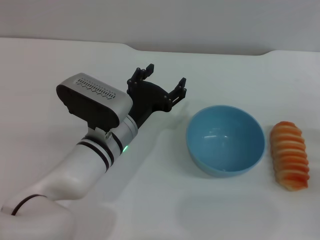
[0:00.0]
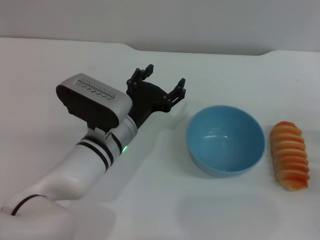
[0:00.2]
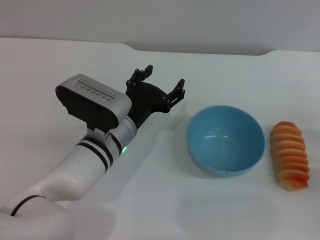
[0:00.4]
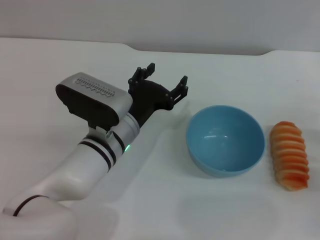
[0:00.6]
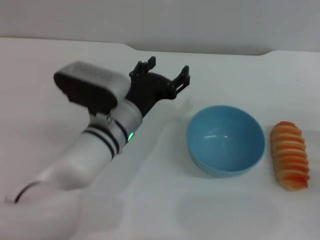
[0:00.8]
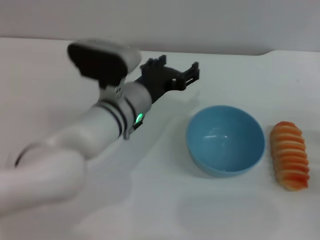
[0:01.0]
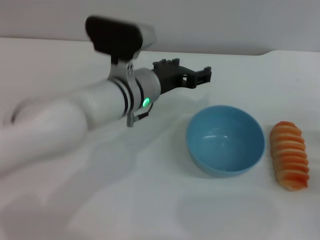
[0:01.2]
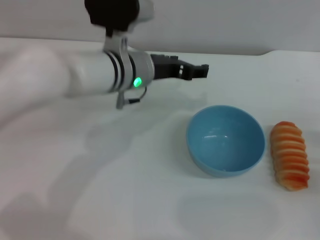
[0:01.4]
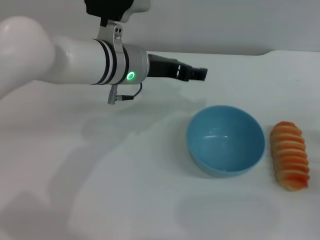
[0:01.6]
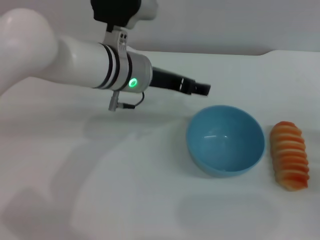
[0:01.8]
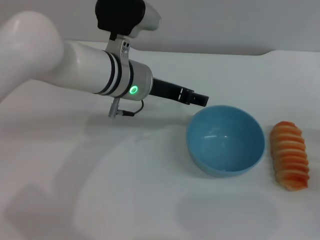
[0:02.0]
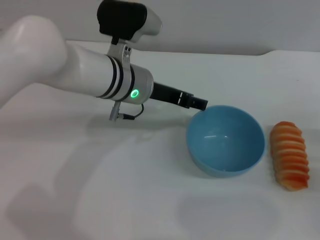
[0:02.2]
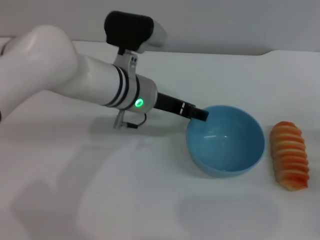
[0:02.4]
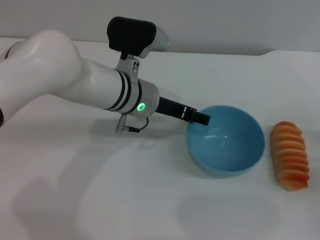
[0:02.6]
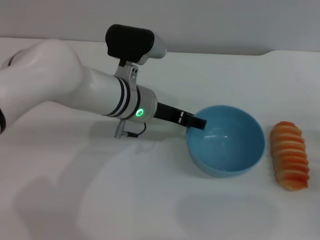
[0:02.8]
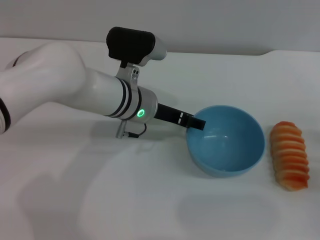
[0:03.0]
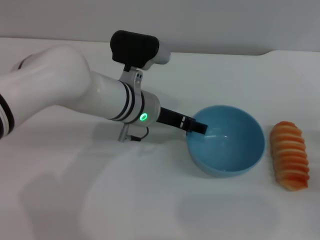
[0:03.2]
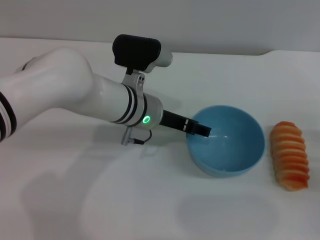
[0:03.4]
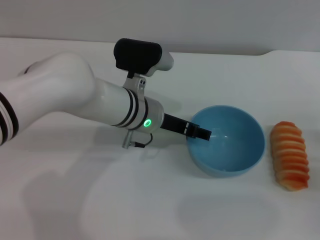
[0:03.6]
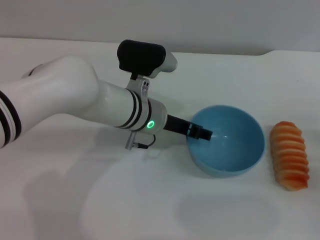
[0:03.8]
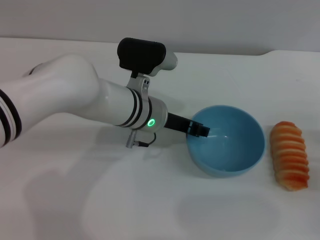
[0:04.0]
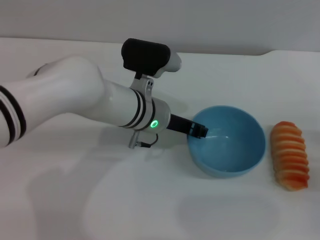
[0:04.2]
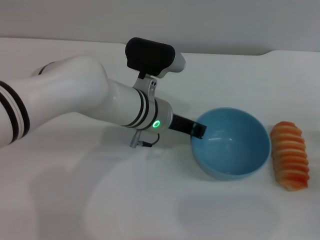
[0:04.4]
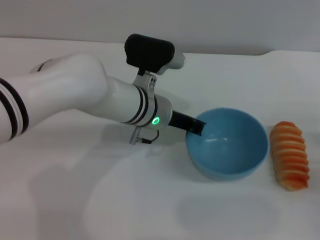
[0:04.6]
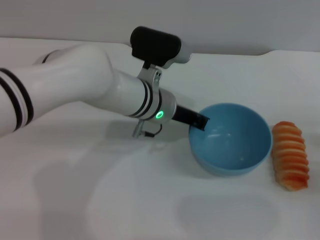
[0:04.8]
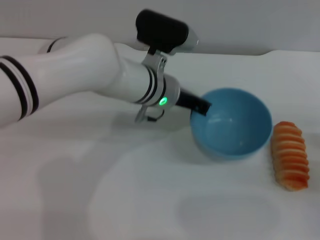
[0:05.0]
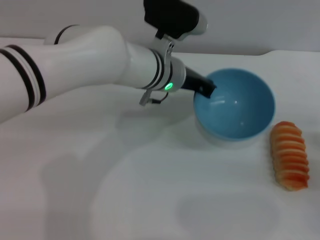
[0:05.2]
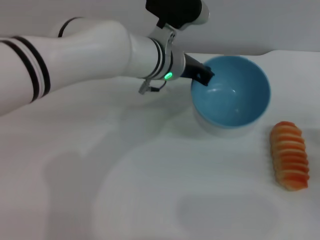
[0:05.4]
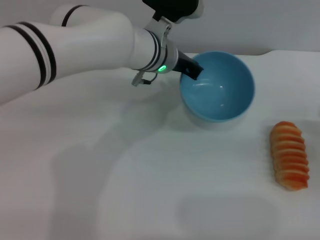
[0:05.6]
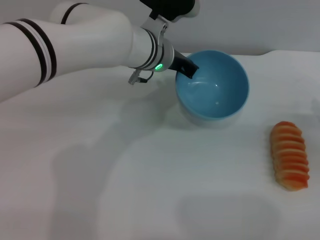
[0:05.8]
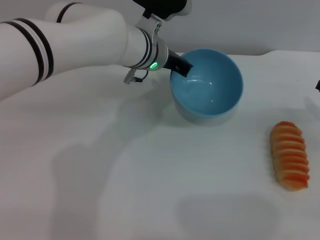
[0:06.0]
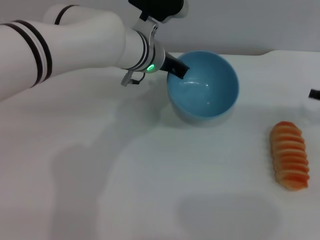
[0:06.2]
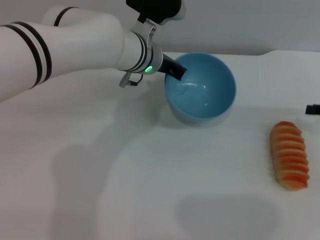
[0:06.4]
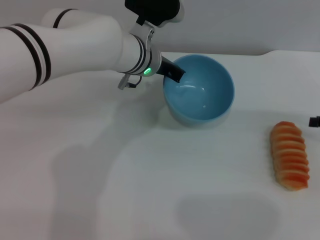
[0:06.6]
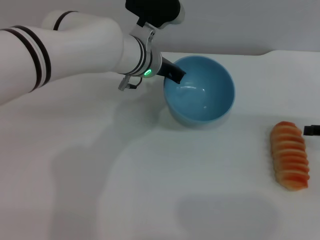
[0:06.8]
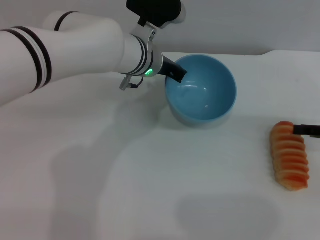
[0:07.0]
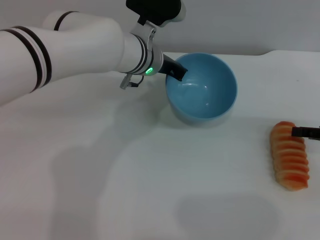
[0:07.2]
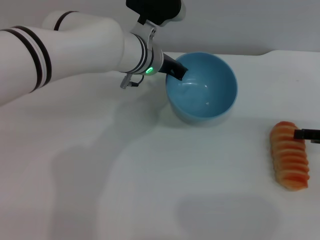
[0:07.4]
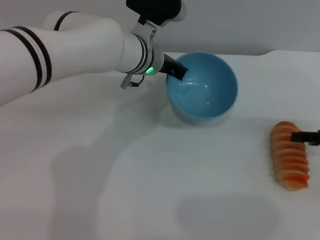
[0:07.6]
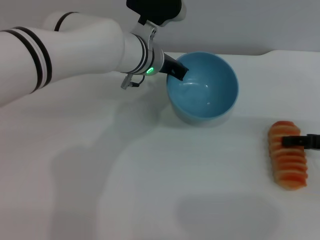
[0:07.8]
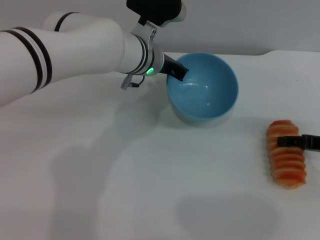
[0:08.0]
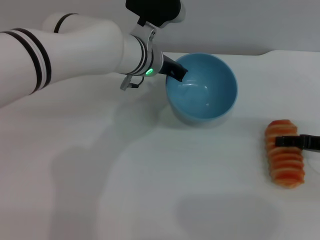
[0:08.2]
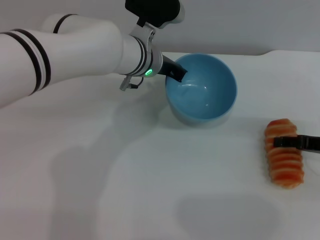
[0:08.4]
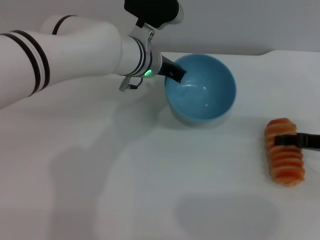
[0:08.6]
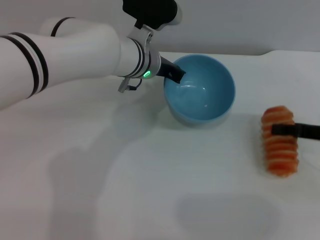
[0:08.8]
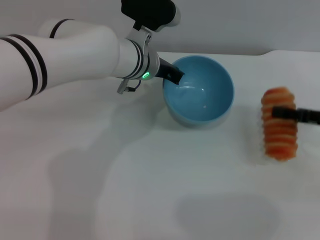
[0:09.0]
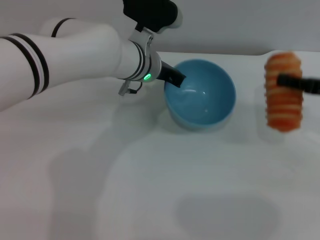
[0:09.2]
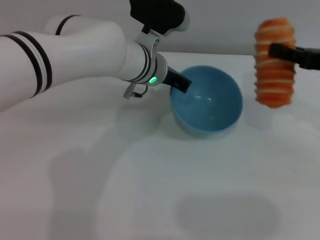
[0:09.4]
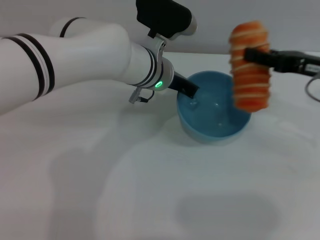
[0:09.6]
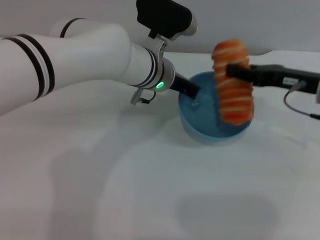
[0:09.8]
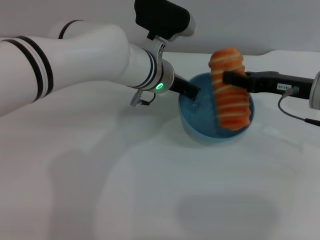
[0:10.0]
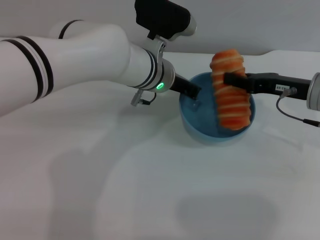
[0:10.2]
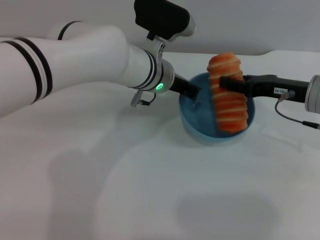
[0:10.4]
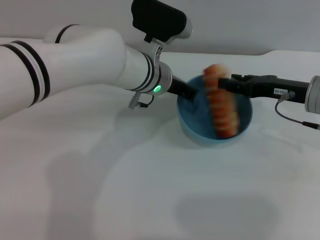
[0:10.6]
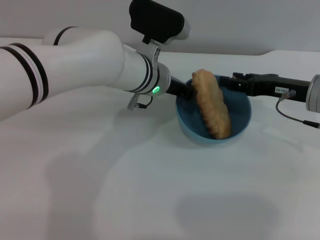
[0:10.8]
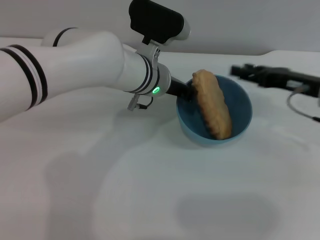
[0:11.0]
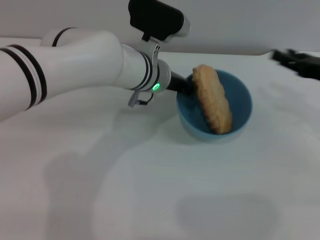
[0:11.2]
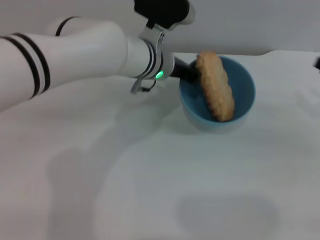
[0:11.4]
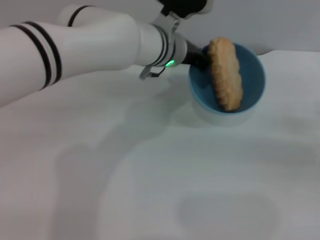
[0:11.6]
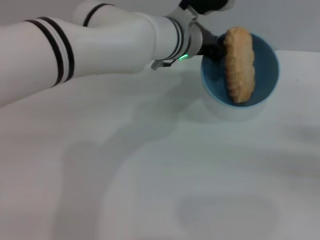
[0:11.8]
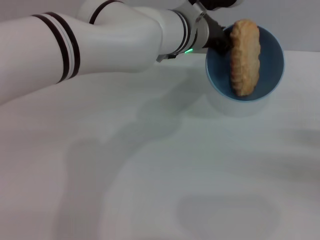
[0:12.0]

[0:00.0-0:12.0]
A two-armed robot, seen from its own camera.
Task of the whole recording: put the bread into the blue bowl and pour it out repeatedly.
Step, 0.0 to 5.2 s: Pick up the bowl with the left gripper.
Step, 5.4 to 9.0 s: Pick up the bread with the right gripper.
Step, 9.2 to 11.0 s: Place the bread into the bowl.
0.0 to 1.6 s: The left gripper is displaced upward and forward by approximately 15 cm.
1.6 to 3.0 s: The left gripper travels downward by some 5 cm.
3.0 to 4.4 s: The left gripper closes.
4.4 to 6.0 s: Both grippers move forward, about 10 cm. The left gripper closes up.
7.6 to 9.0 s: The right gripper closes its fingers.
9.0 to 10.4 s: The right gripper is displaced to the left by approximately 10 cm.
10.4 to 12.0 s: The right gripper is displaced to the right, backward and downward by about 20 cm, and opens up. Meanwhile the left gripper moves roughly 5 cm.

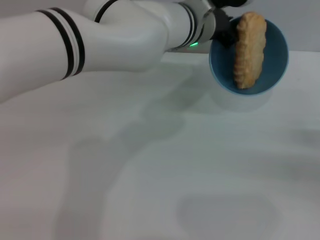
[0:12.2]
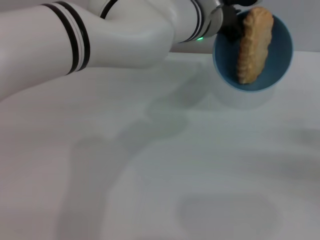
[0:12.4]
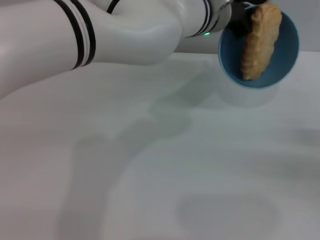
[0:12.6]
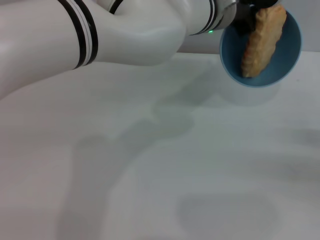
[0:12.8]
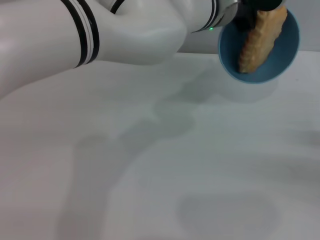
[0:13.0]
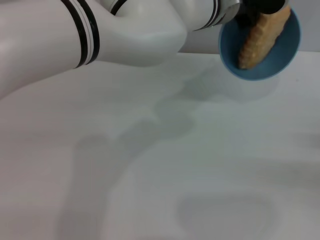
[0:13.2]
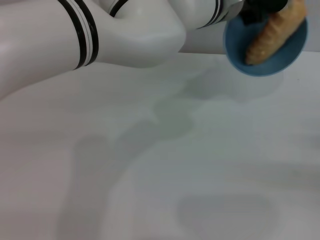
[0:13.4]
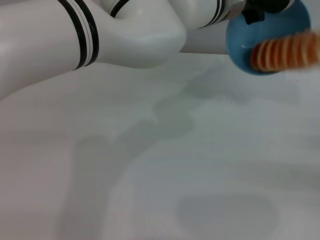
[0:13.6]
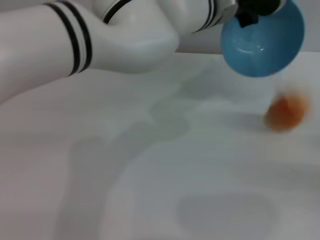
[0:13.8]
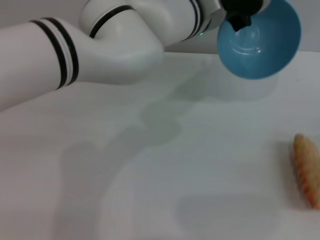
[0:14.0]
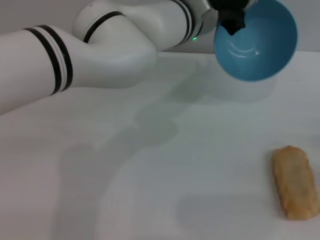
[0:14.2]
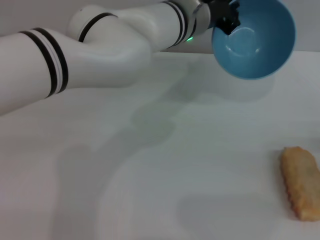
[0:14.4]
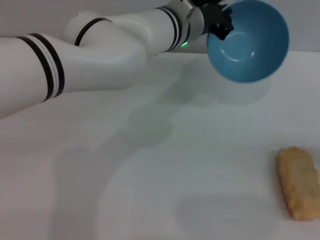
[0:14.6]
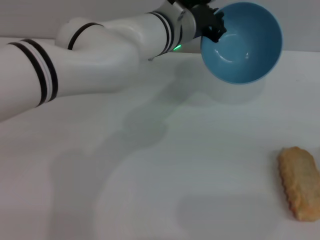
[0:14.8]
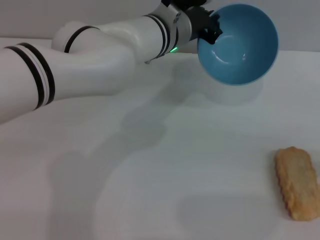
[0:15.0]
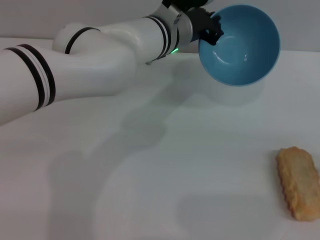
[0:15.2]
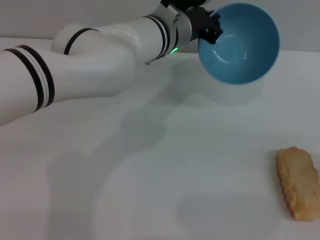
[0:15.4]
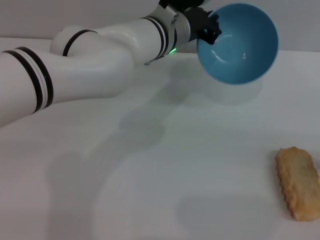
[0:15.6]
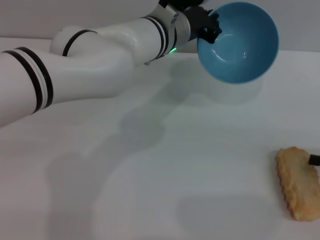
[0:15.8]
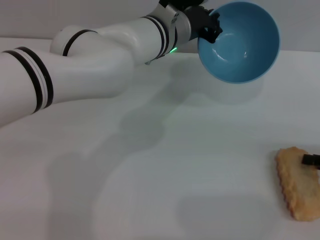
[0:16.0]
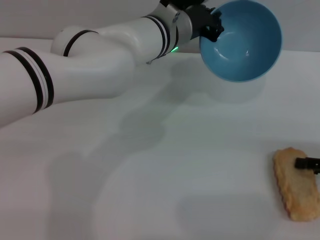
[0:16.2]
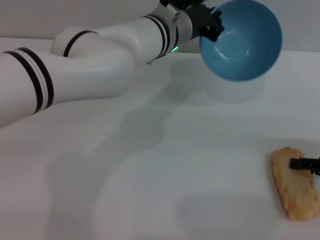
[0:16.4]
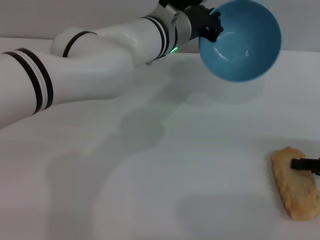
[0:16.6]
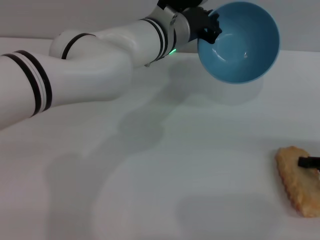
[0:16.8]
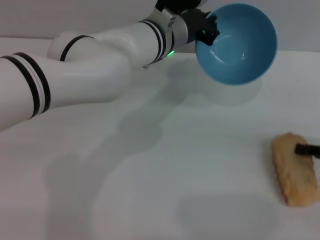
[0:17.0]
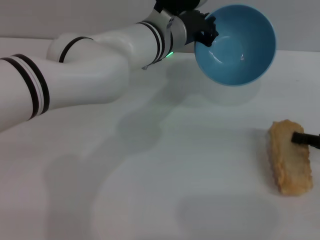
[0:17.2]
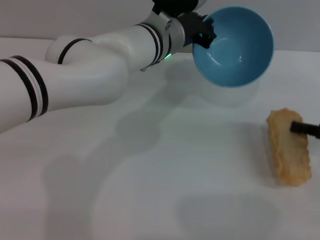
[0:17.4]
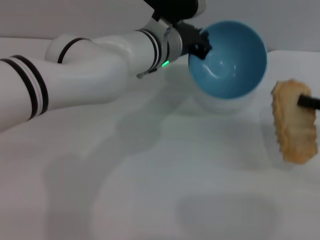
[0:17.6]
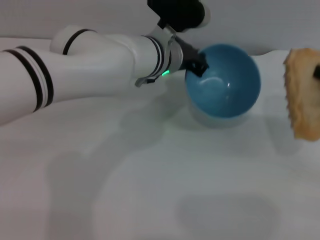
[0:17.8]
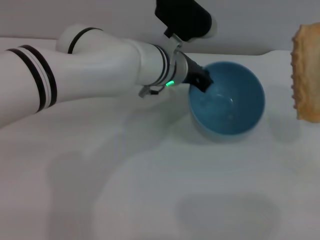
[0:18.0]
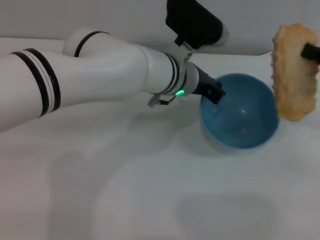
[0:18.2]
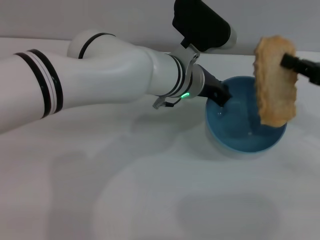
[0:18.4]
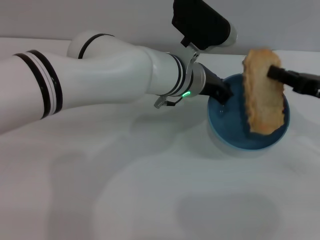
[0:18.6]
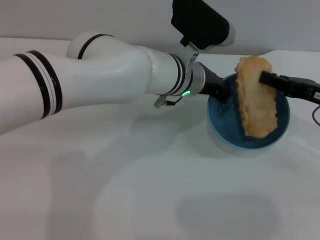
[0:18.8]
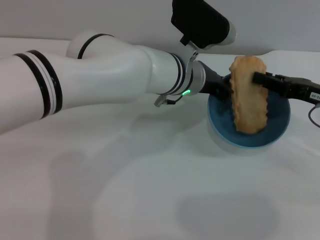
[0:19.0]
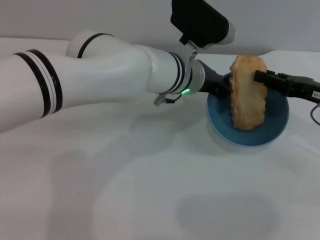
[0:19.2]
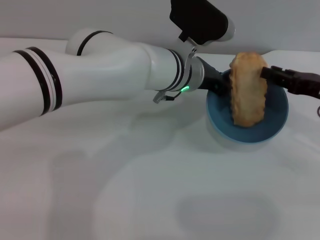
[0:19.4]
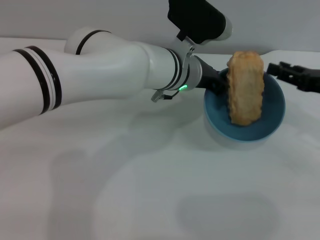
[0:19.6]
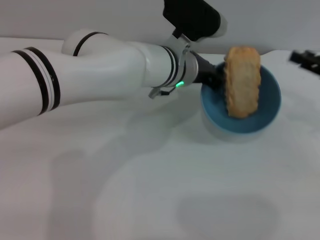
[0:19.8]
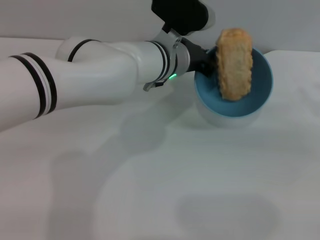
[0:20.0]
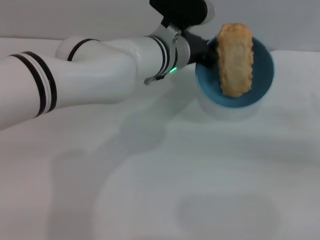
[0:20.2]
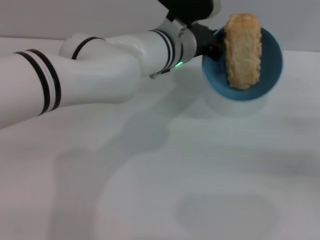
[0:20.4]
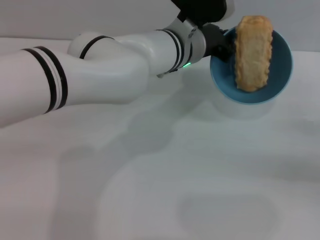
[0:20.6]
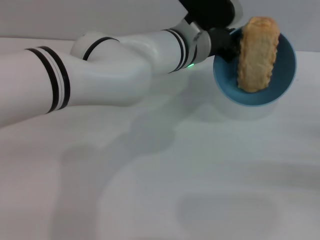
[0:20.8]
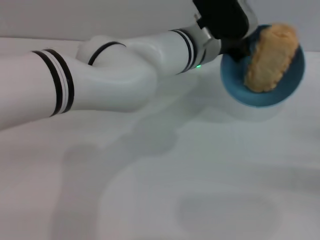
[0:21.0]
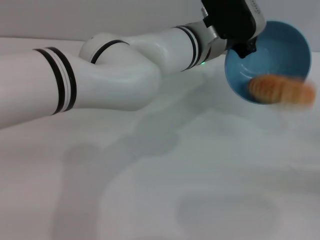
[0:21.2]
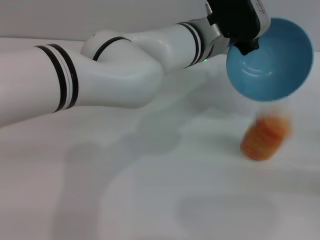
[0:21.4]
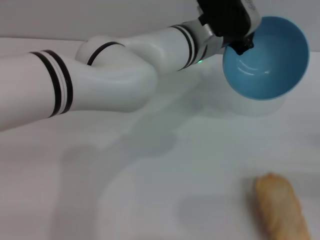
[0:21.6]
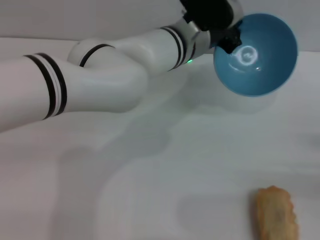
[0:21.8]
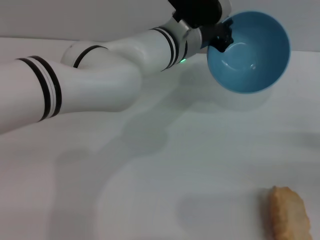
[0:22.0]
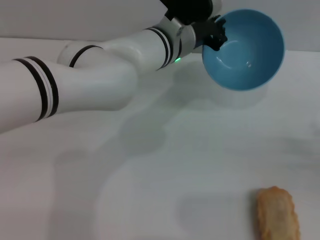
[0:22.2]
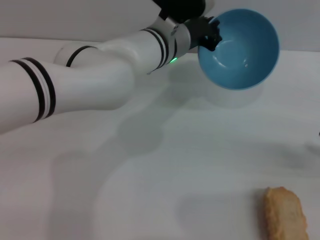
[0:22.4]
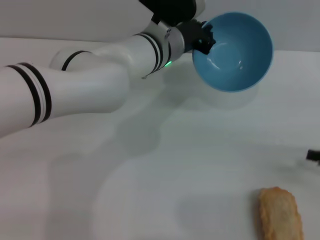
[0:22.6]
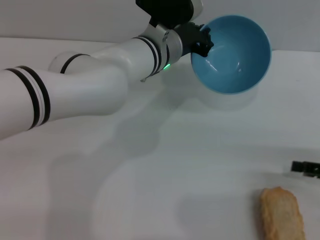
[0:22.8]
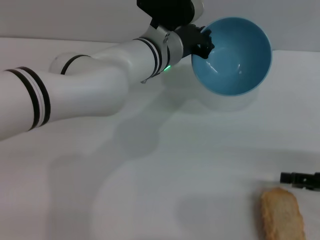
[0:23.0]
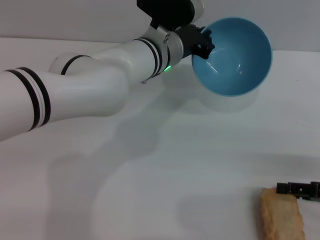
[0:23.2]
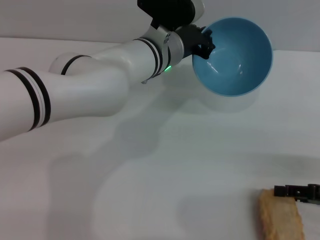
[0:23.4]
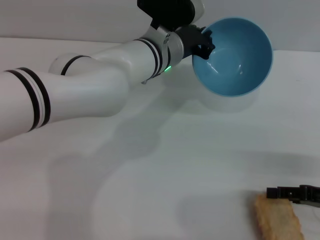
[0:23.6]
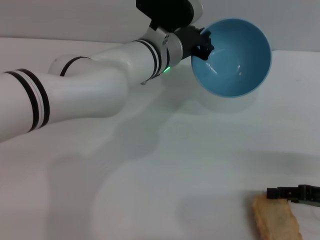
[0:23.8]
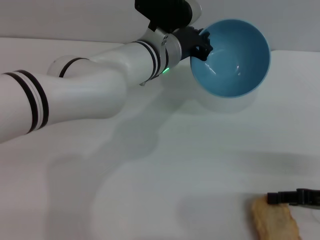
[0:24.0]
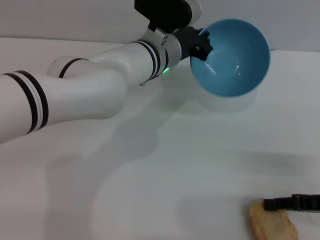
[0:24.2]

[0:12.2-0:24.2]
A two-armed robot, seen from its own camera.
Task of the whole recording: put the bread into the blue bowl and pour it out repeatedly.
Step, 12.2 to 14.0 s: Pour the bread out of the bowl.
Step, 14.2 to 17.6 s: Pick up the bread with the right gripper.
Step, 17.8 to 19.6 s: Place the bread into the bowl.
Step, 19.8 to 22.0 s: Pour the bread out of the bowl.
13.8 to 15.2 s: The left gripper travels to the left by roughly 5 cm.
15.2 to 16.6 s: The right gripper travels to the left by some 5 cm.
16.6 to 18.2 s: The right gripper heads upward, covering approximately 10 cm, and closes up.
18.2 to 19.8 s: The right gripper opens up.
19.8 to 21.2 s: The right gripper moves downward, backward and to the right, roughly 15 cm.
21.2 to 22.6 s: The left gripper moves to the left, about 5 cm.
22.6 to 24.2 s: The right gripper shifts some 5 cm to the left.
